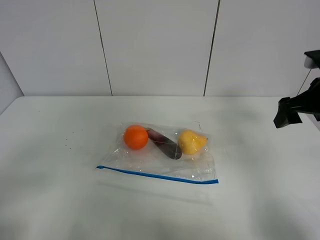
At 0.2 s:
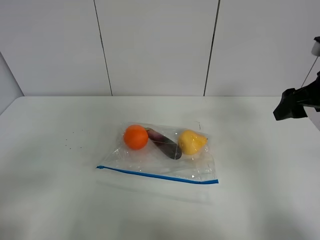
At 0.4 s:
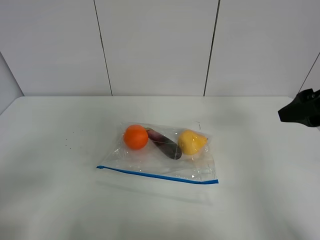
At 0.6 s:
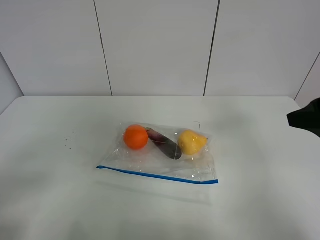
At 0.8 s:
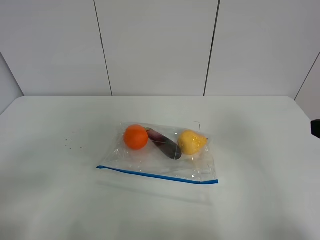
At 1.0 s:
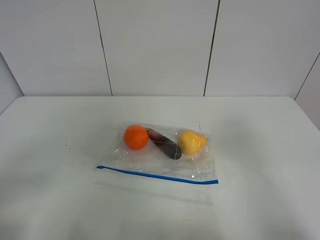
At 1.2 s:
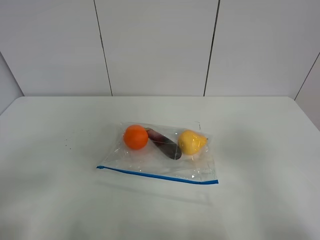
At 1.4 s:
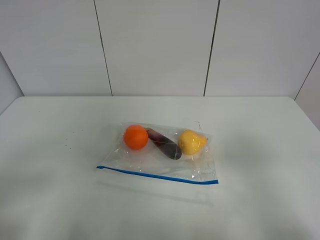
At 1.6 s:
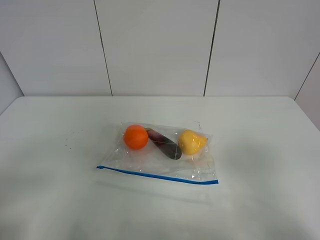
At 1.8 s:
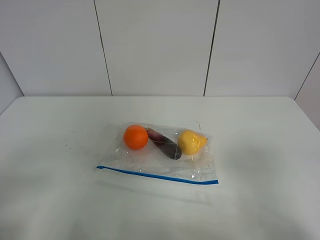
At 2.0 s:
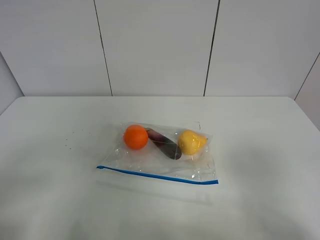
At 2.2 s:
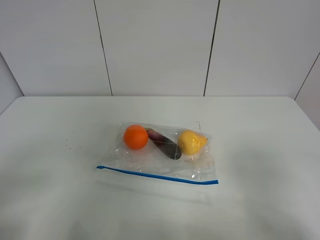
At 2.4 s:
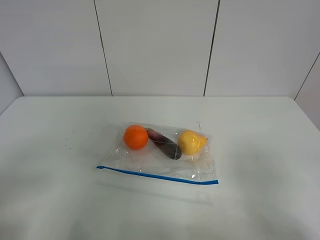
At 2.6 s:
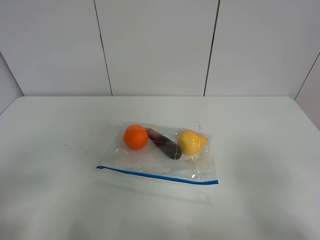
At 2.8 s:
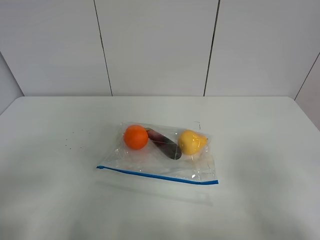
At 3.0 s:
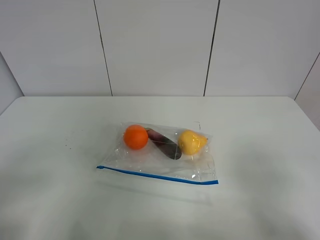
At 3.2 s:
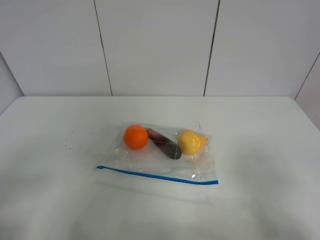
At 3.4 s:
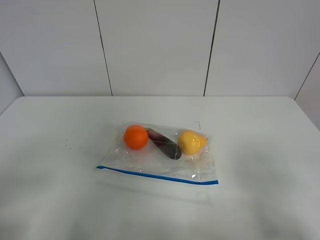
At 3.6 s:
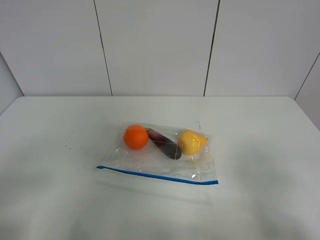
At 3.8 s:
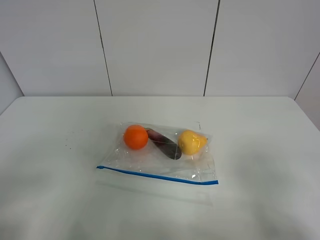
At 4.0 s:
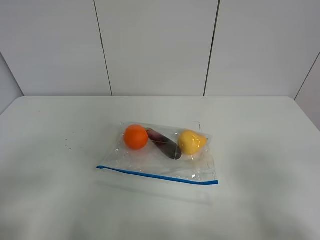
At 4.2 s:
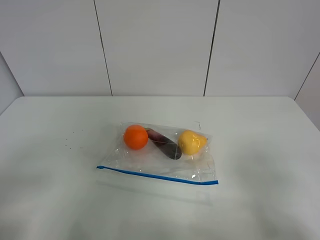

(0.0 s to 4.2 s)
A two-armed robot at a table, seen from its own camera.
0.0 s - 1.4 s: The right gripper shifts roughly 25 cm backward.
2.8 s - 4.2 s: Both grippers stay put.

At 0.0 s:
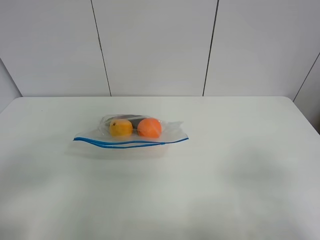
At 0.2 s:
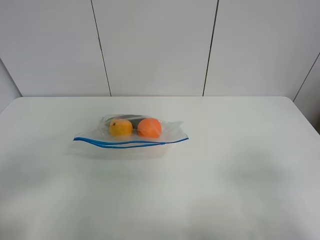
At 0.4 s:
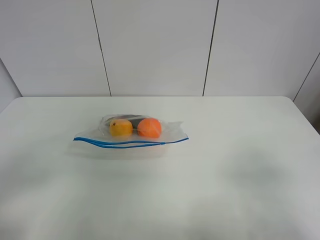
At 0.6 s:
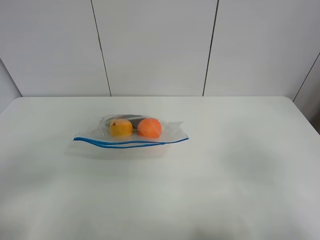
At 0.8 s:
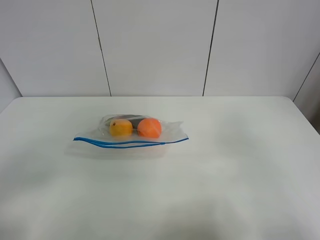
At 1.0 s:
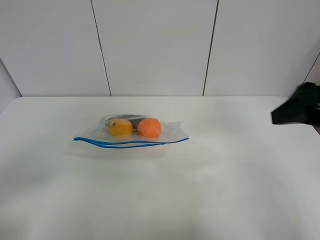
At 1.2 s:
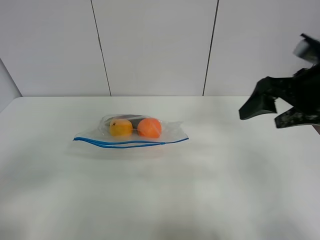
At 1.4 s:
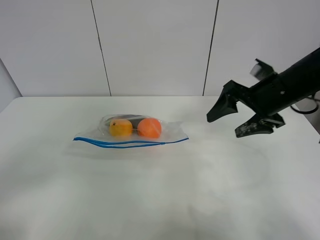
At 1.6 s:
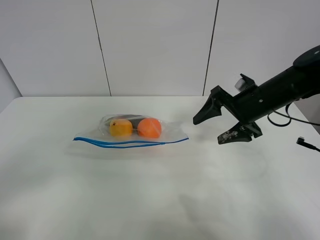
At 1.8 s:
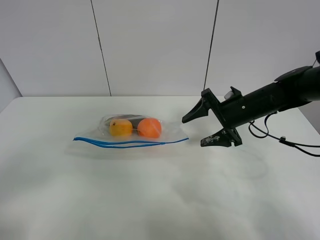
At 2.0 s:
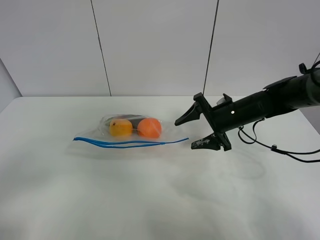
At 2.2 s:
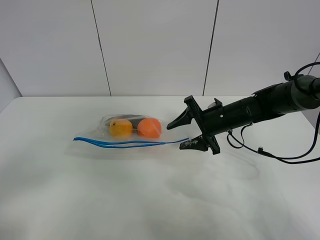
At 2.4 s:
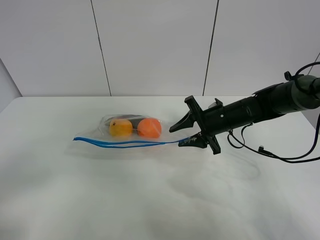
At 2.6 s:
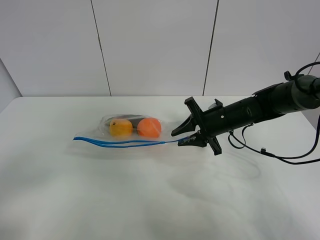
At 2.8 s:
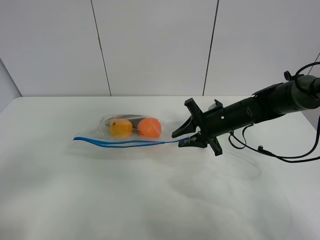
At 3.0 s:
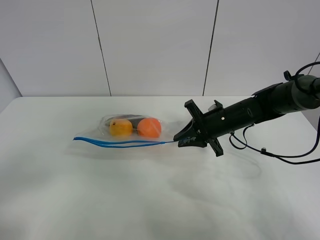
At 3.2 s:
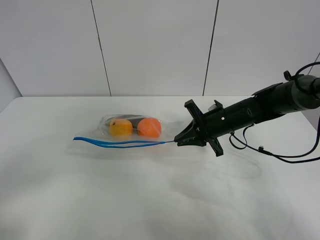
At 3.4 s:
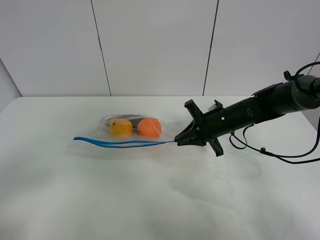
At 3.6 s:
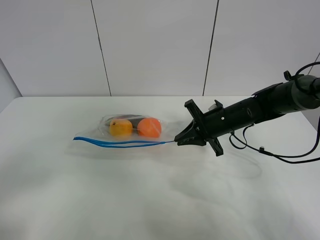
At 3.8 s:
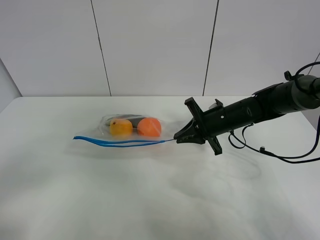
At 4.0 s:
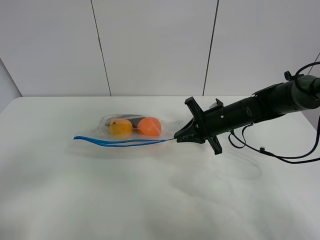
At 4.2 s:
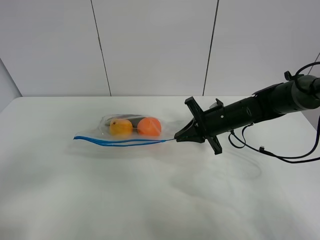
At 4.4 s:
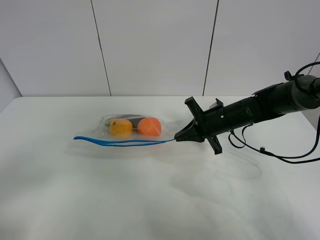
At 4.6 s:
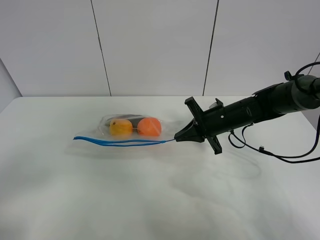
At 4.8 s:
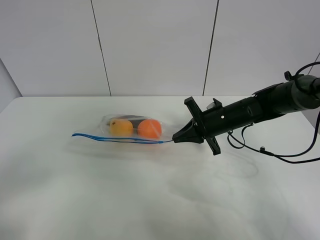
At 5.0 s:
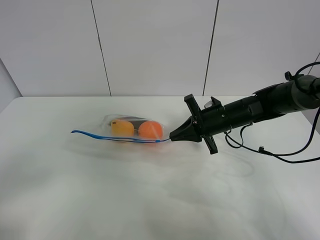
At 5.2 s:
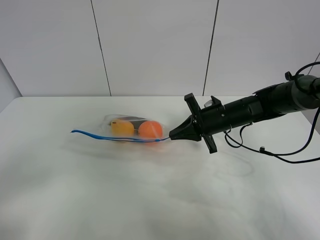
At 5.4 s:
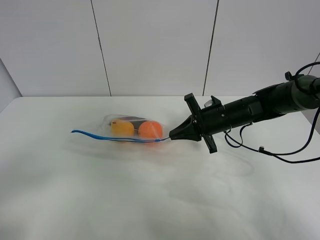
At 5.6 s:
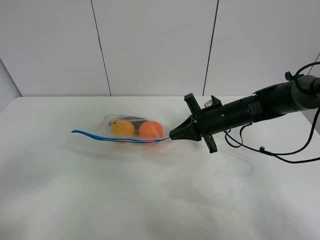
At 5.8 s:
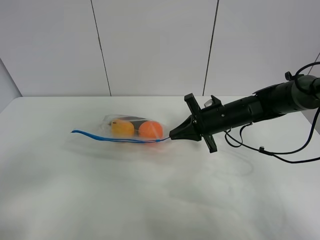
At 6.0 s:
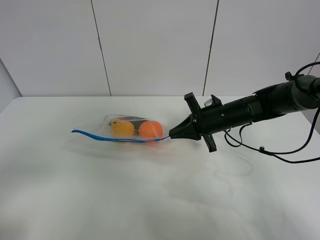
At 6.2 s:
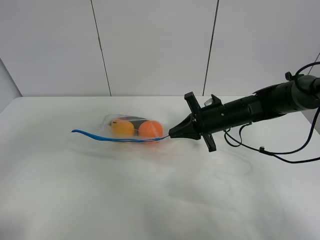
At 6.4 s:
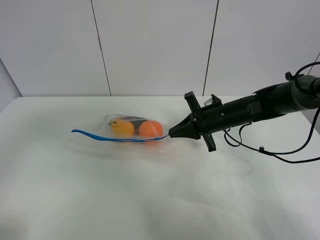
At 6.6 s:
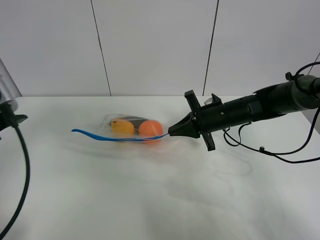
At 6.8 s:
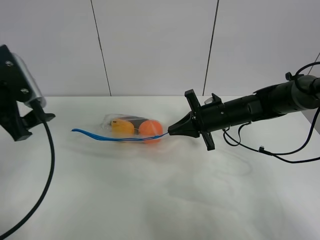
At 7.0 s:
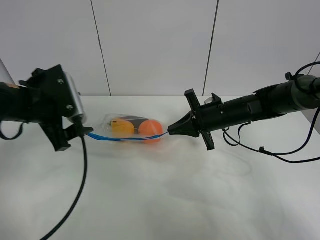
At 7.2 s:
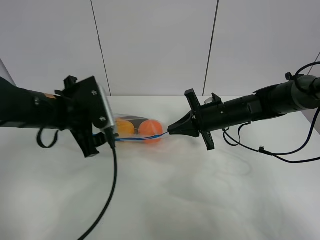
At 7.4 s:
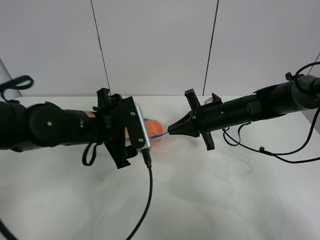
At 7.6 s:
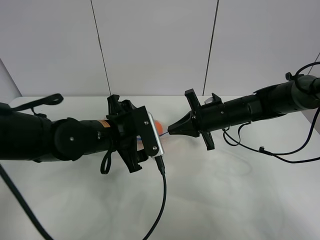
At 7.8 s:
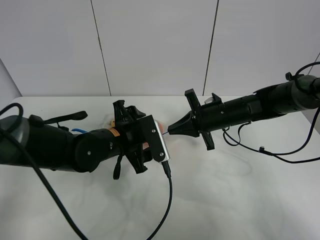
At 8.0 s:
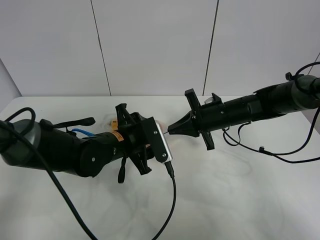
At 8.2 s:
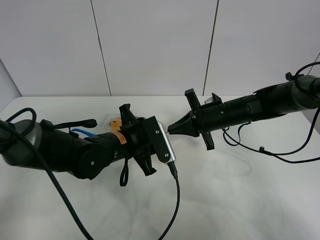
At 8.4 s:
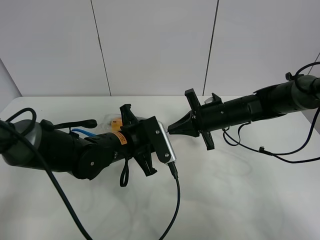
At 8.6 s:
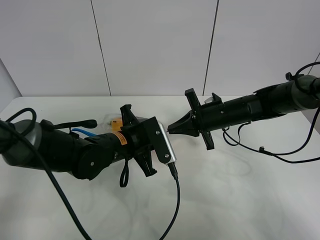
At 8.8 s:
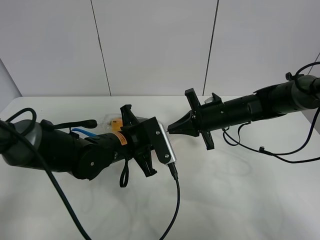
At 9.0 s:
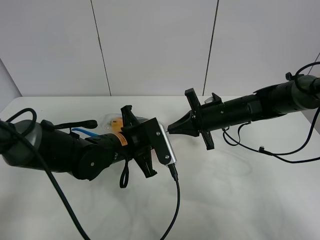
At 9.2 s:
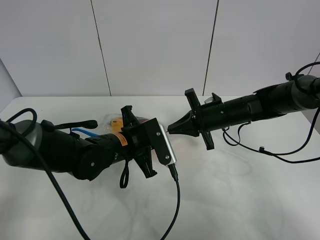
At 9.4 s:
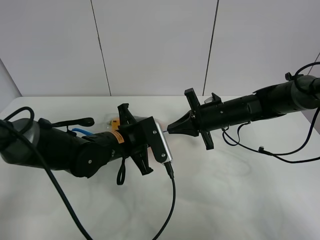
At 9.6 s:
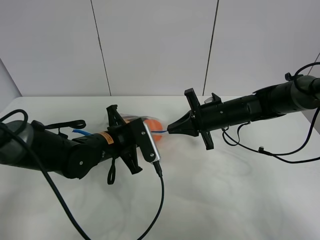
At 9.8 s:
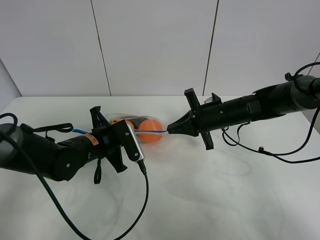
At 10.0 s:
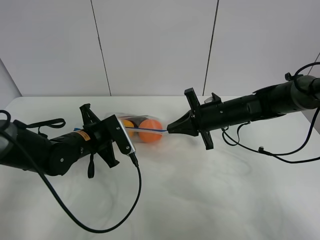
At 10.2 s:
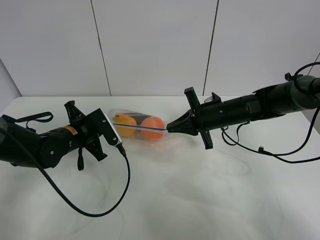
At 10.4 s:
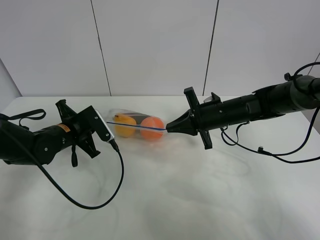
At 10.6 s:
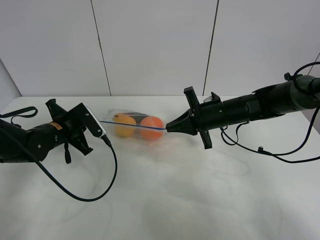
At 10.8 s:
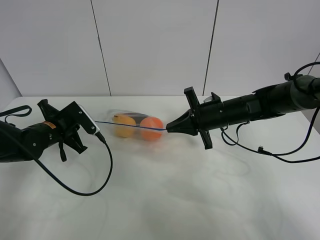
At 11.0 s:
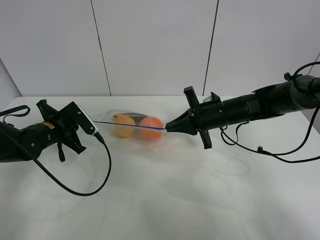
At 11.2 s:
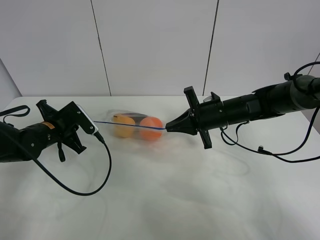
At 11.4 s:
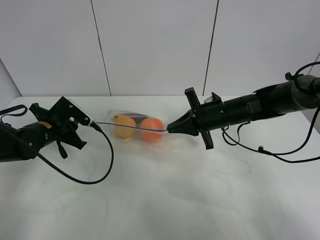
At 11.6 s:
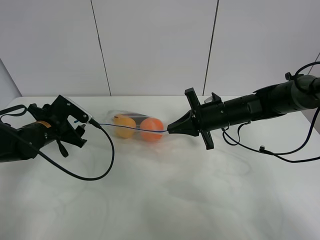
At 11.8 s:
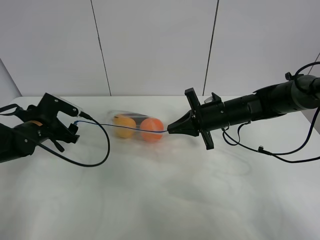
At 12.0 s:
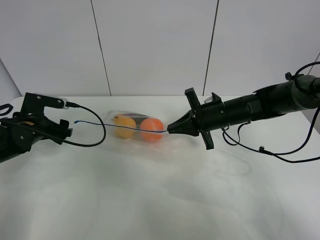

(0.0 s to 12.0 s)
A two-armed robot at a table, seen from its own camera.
Step, 0.0 s - 4.4 s: Grasp the fruit bag with right gripper.
Step, 4.6 s - 6.0 s: Lift the fruit bag with your right gripper.
Step, 6.2 s - 11.8 s: Pull the fruit bag with left gripper.
0.0 s - 1.6 s: The right gripper shifts some 30 cm forward.
1.6 s - 3.0 s: The right gripper shifts roughly 5 cm downward, and closes.
3.0 s - 4.4 s: Both grippers stay put.
4.4 s - 6.0 s: The grippers stay close to where they were, moving slightly.
6.0 s - 7.6 s: The left gripper heads forward, to the right and downward, covering approximately 35 cm.
7.6 s - 9.0 s: The left gripper closes its fingers.
9.0 s - 10.4 s: The left gripper is displaced to the left by approximately 15 cm.
10.4 s - 12.0 s: The left gripper heads to the left, covering some 10 cm, and opens.

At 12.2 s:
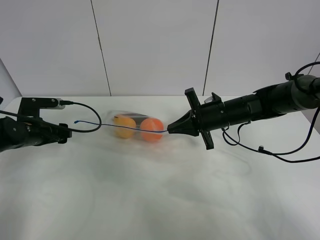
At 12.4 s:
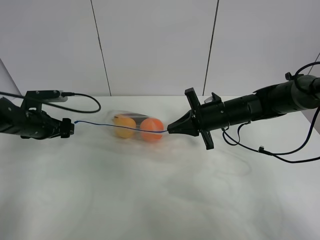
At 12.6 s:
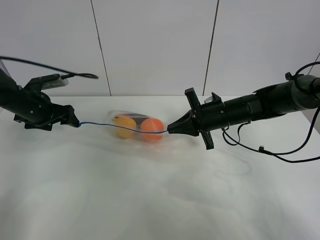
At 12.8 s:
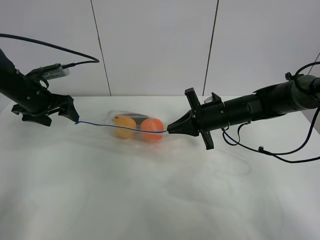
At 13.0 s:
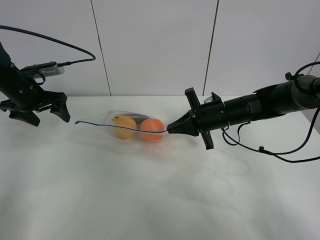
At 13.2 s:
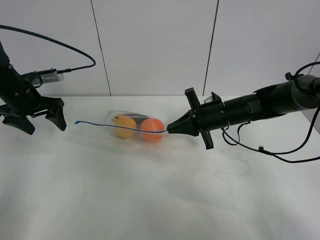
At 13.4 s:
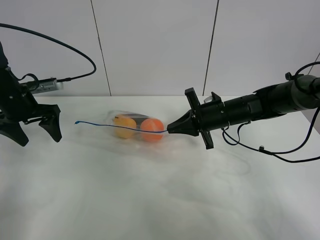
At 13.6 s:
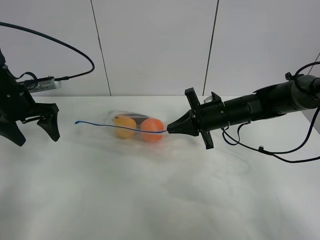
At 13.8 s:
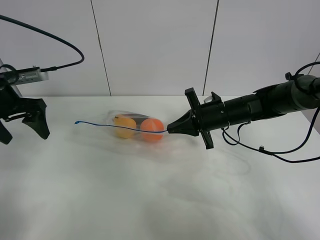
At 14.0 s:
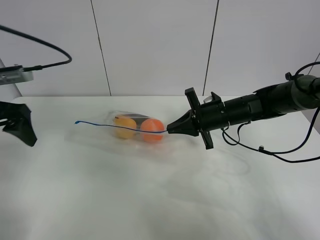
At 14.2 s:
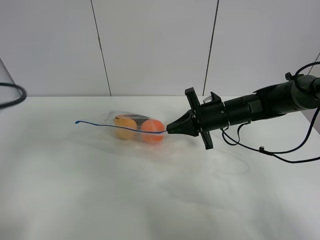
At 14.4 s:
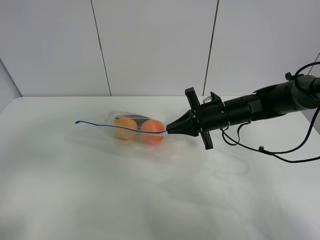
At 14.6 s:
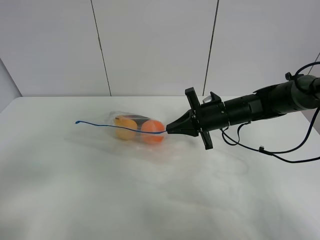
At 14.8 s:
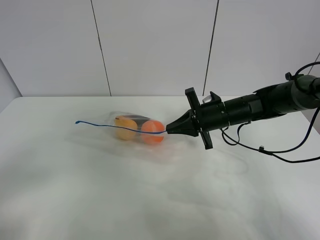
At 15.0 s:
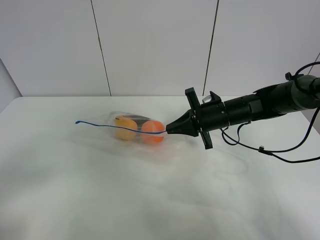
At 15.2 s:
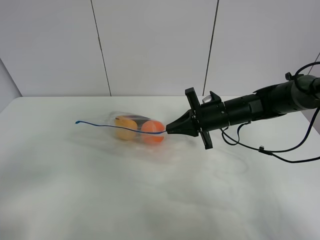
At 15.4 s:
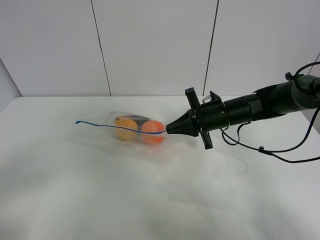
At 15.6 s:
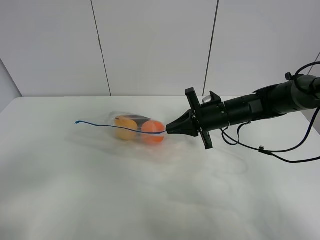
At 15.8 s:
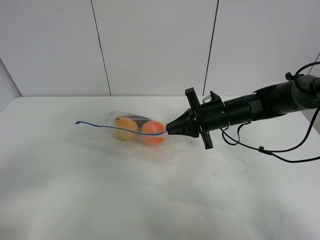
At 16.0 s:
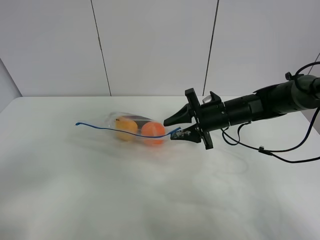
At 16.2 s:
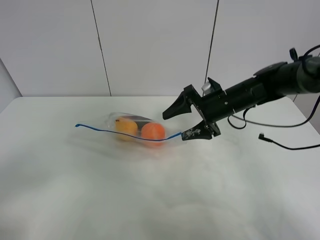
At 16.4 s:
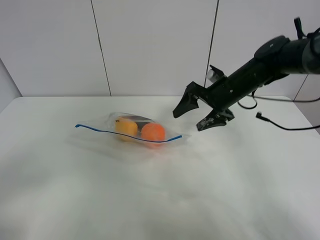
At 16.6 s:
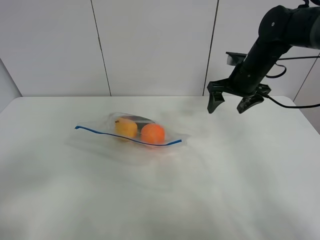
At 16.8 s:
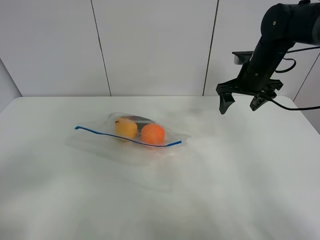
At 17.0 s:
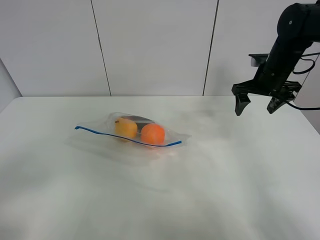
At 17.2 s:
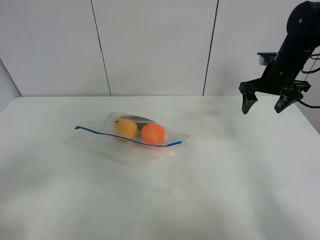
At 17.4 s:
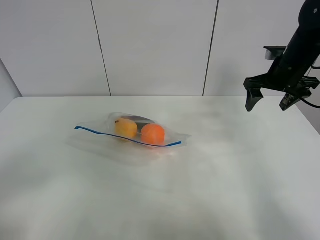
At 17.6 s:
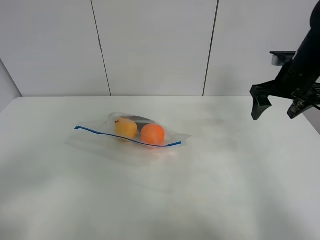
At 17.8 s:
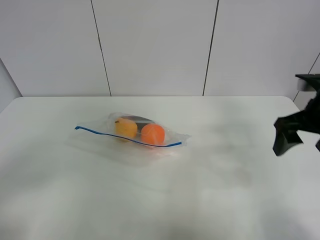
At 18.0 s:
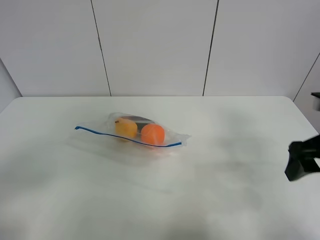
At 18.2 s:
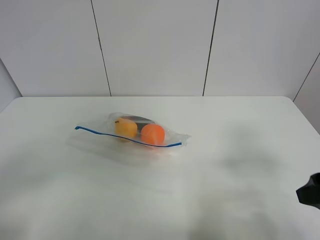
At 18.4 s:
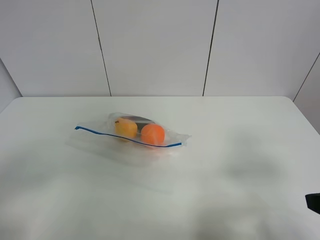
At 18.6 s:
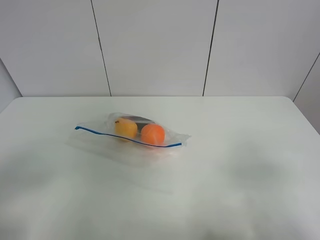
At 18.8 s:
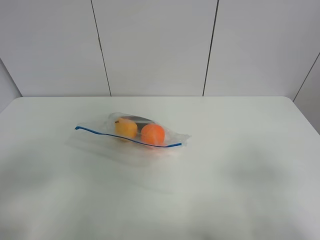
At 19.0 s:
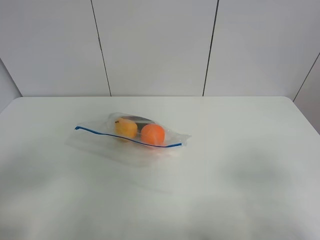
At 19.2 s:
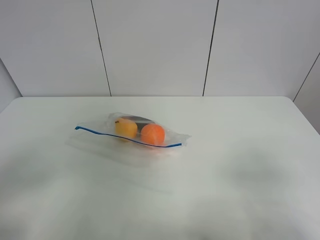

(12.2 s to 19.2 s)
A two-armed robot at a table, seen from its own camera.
12.2 s - 13.6 s: The left gripper goes some 10 cm upward.
13.6 s - 15.0 s: The left gripper heads backward, covering approximately 30 cm.
15.0 s - 16.4 s: The right gripper travels upward by about 5 cm, and opens up.
16.4 s - 17.8 s: The right gripper shifts approximately 20 cm backward and to the right.
17.8 s - 19.2 s: The right gripper goes roughly 25 cm backward.
